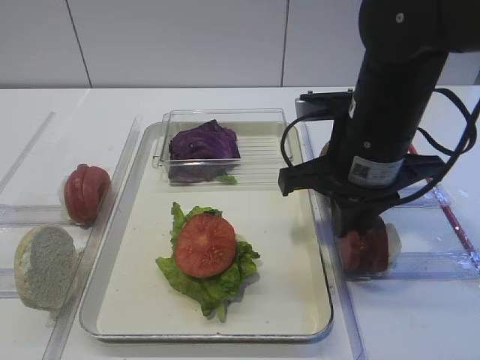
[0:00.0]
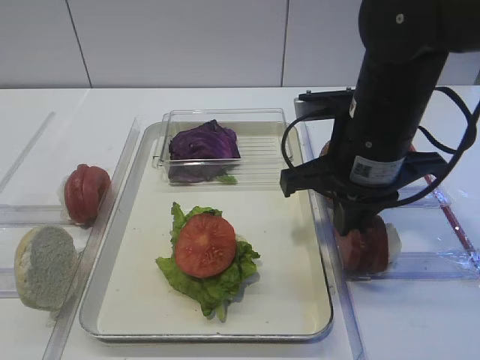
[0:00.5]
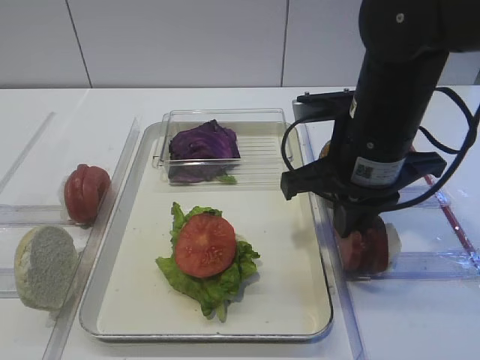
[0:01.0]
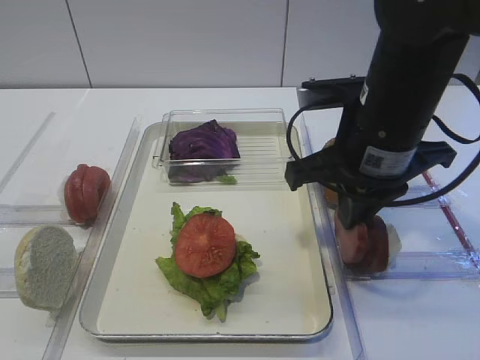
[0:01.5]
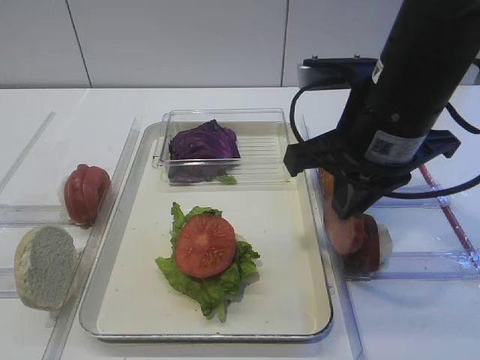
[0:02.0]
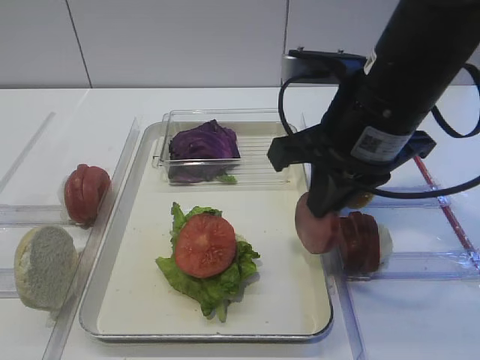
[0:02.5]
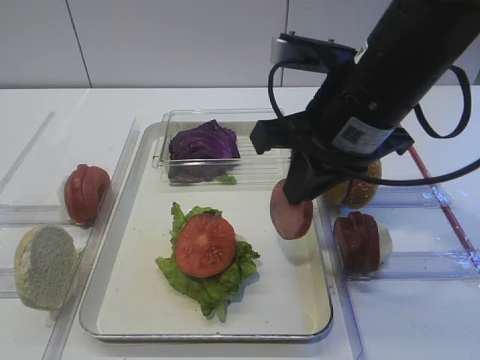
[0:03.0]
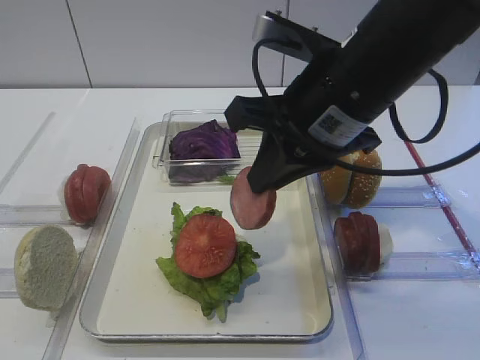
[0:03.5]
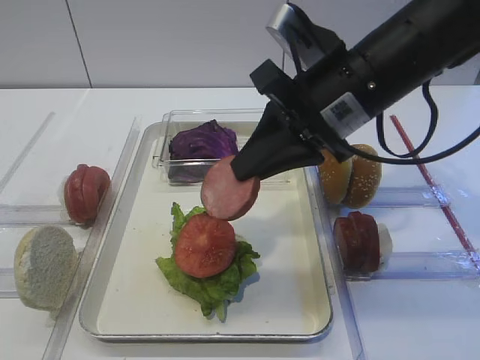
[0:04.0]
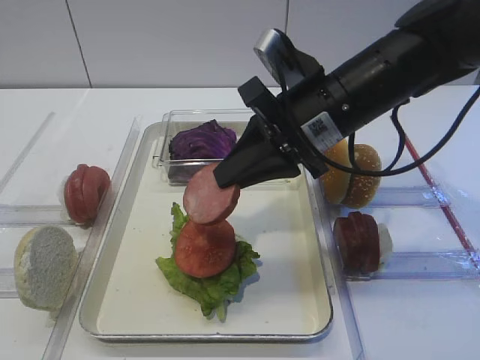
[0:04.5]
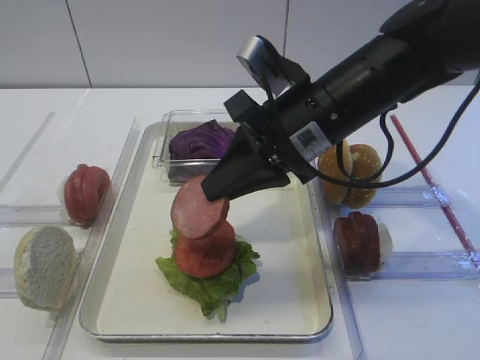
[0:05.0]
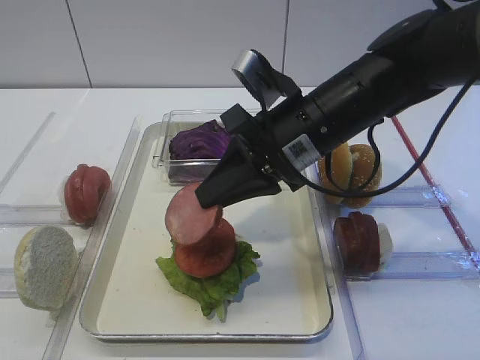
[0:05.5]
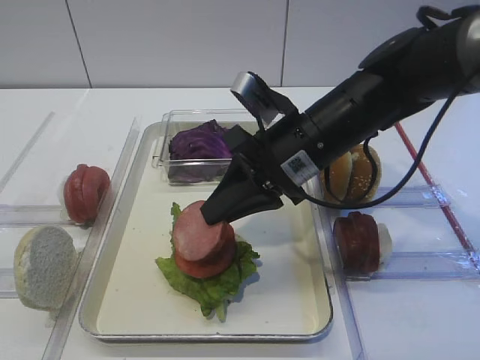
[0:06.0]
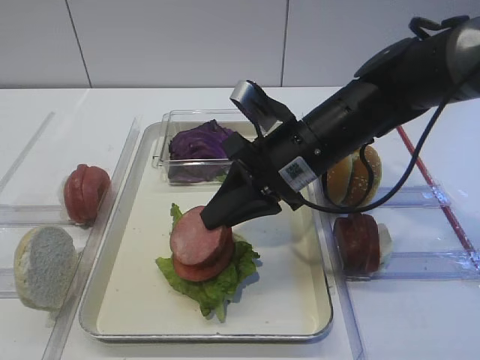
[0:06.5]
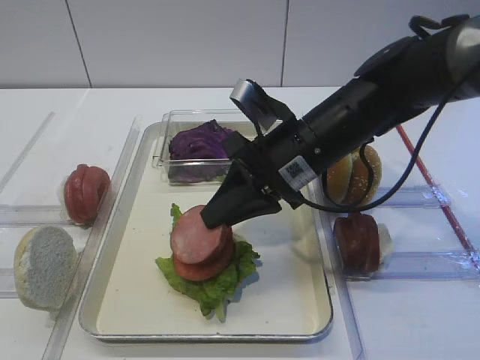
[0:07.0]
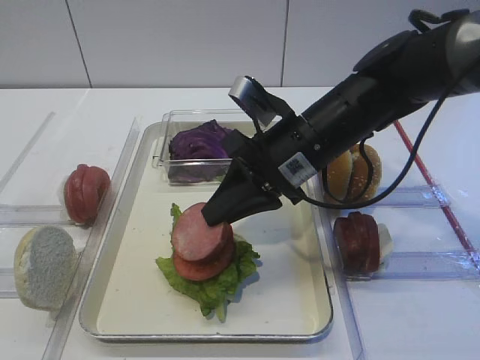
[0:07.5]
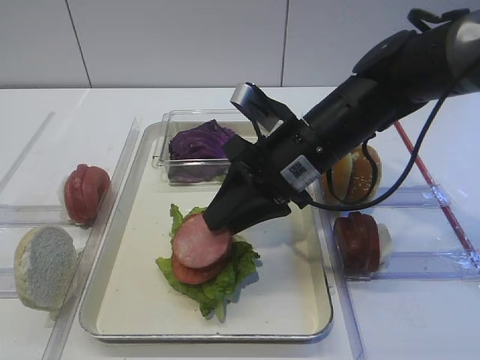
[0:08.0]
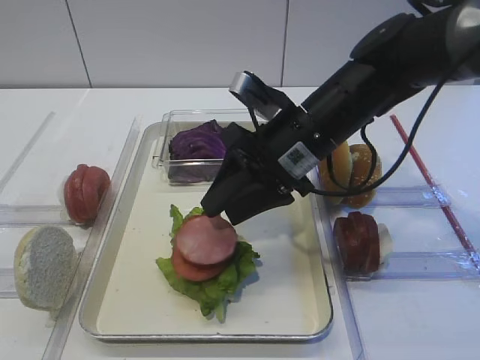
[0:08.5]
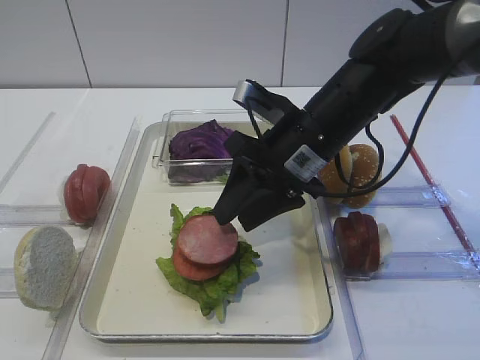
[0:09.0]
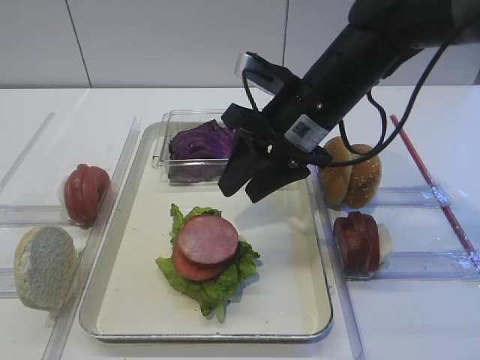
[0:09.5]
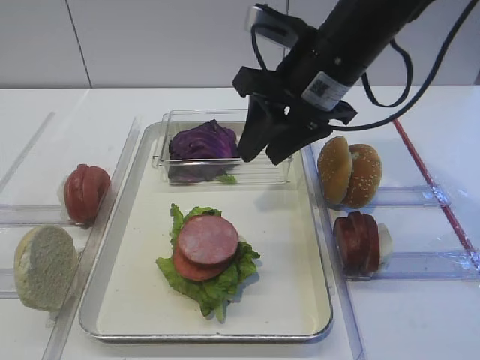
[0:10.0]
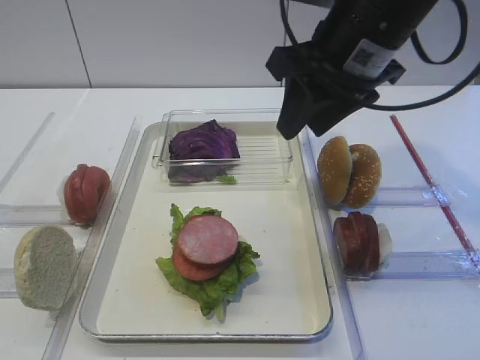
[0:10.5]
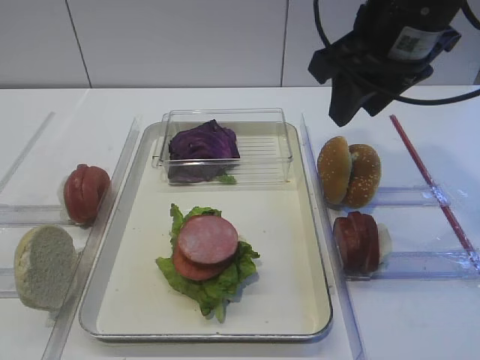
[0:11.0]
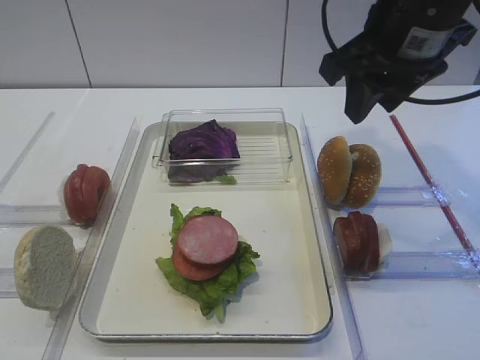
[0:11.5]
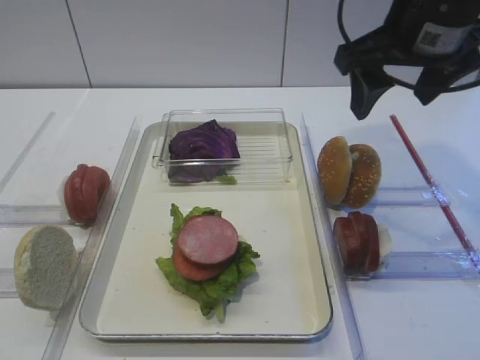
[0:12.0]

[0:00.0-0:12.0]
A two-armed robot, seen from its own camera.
Step, 0:00.0 to 0:02.0: Pick up the cutlet with the right gripper.
Step, 0:02.5 to 0:09.5: Place the cutlet on the tomato slice with the right gripper.
0:00.0 to 0:02.0: The grippers stay close to where they were, moving slightly.
0:04.0 to 0:06.0: The right gripper travels downward by about 5 cm.
0:06.0 to 0:08.0: The right gripper opens.
0:08.0 to 0:10.0: The right gripper travels upward by some 10 cm.
0:10.0 to 0:12.0: The right gripper shifts approximately 10 cm to the right and upward, and opens its fingers.

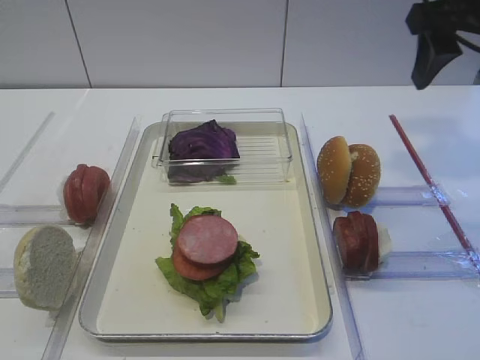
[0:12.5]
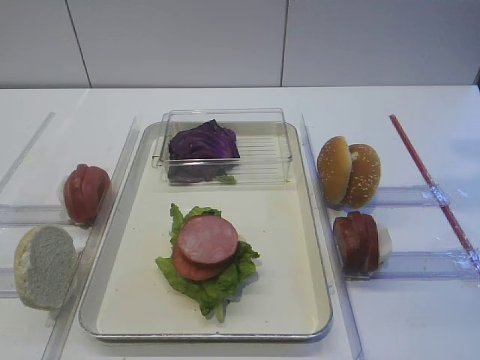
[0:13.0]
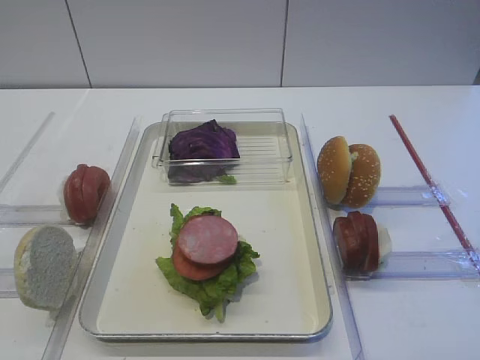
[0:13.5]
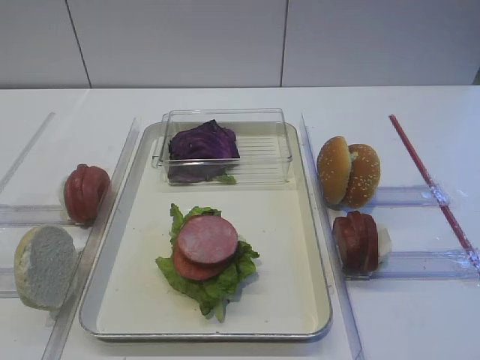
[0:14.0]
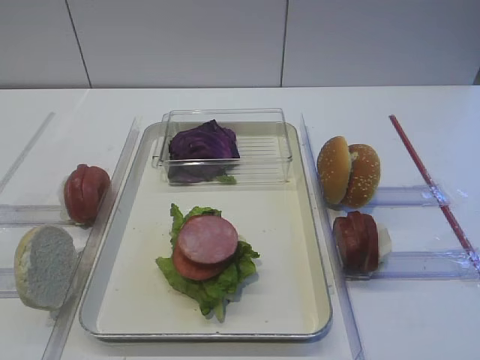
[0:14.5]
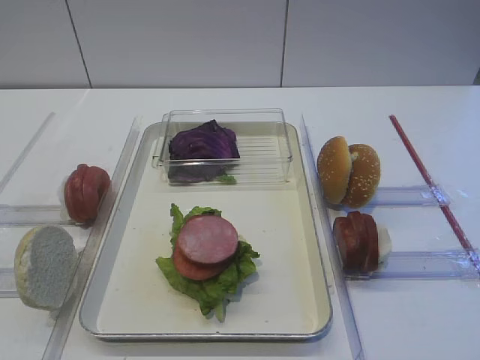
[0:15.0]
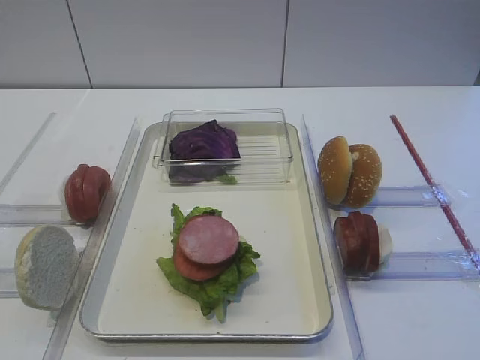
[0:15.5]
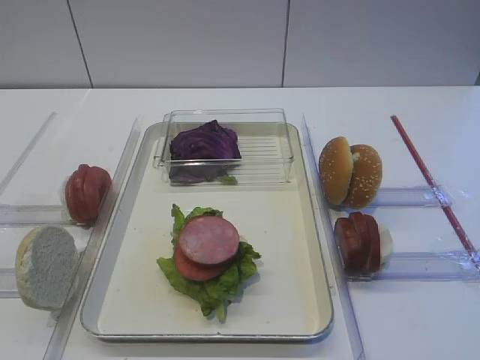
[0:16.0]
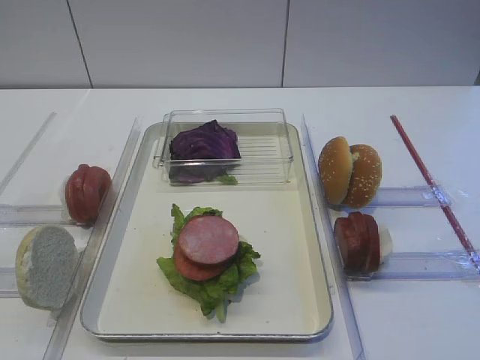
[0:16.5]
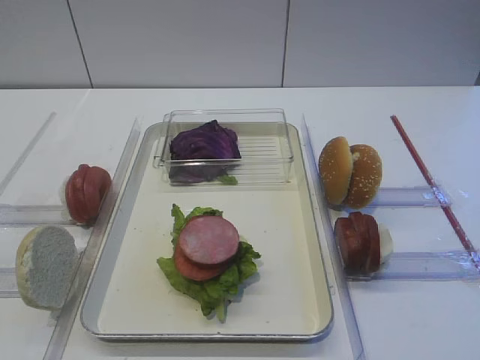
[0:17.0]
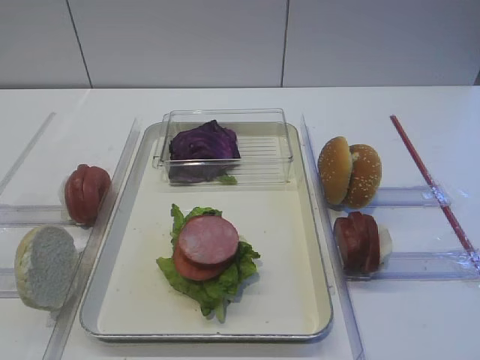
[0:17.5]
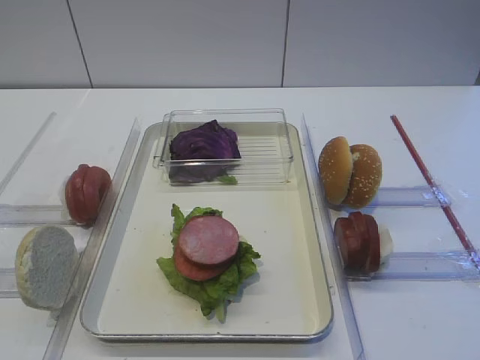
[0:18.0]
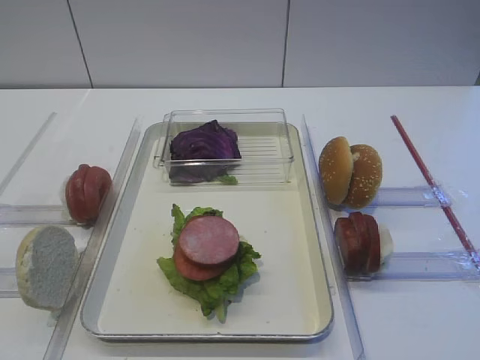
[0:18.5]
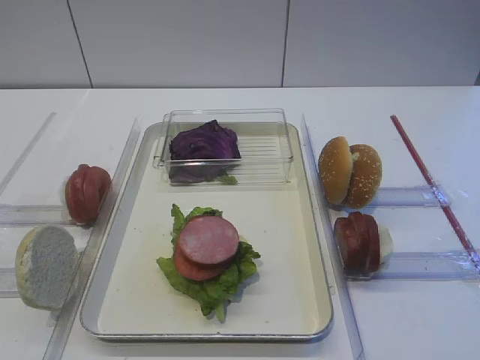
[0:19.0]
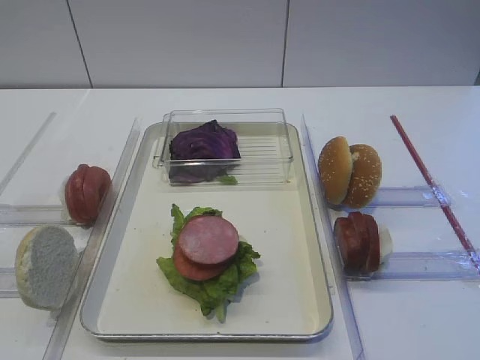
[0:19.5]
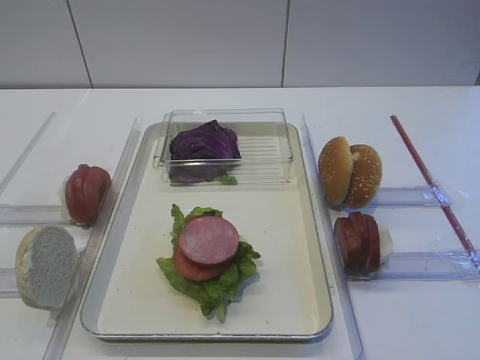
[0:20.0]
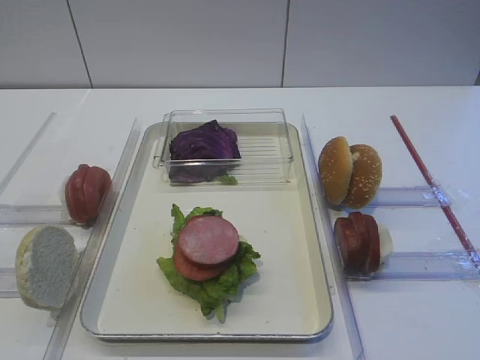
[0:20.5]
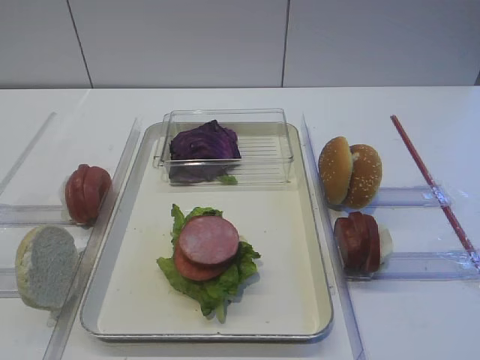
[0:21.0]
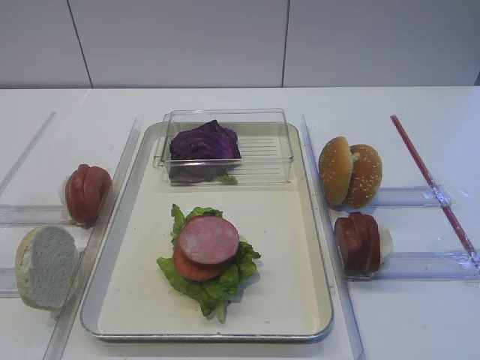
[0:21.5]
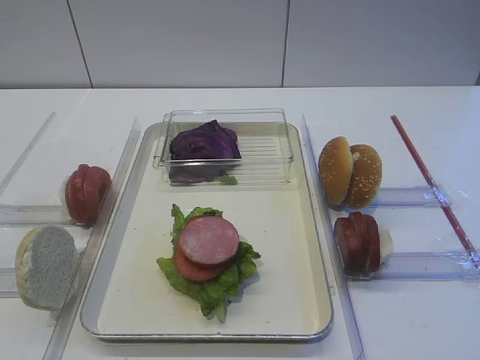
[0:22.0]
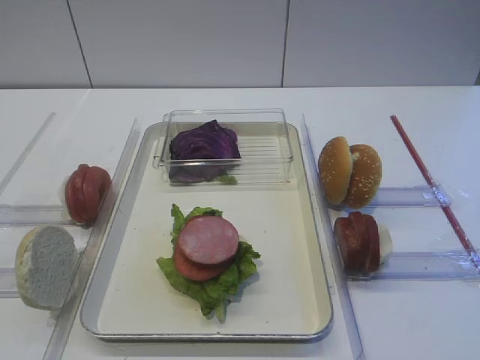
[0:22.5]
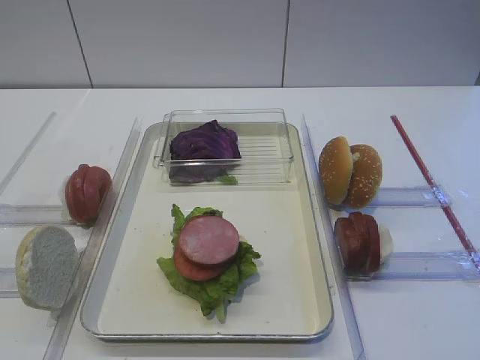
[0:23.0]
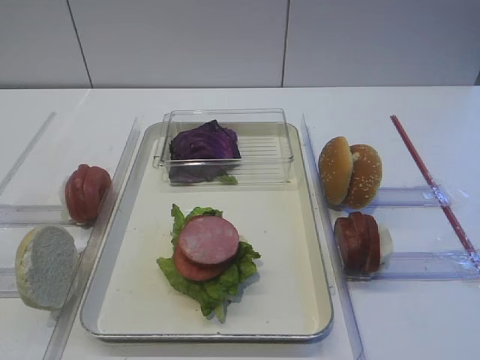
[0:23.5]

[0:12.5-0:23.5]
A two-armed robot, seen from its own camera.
0:12.5 to 0:14.5: The right gripper moves backward, some 30 cm.
0:16.0 to 0:23.5: Both grippers stay put.

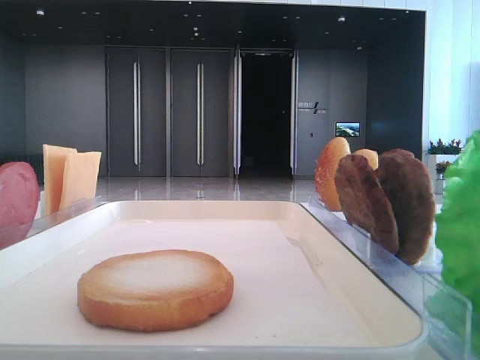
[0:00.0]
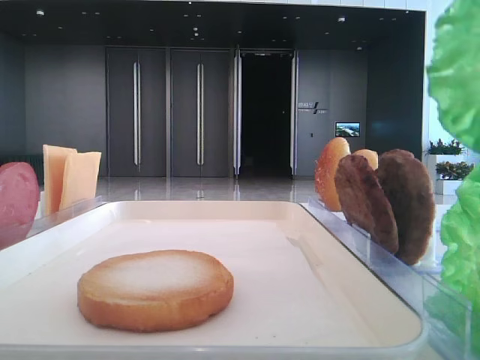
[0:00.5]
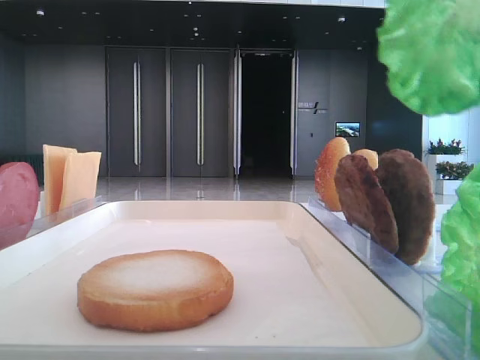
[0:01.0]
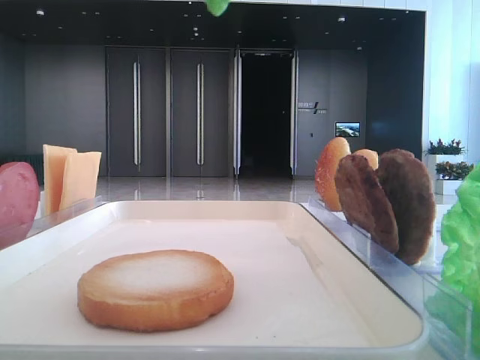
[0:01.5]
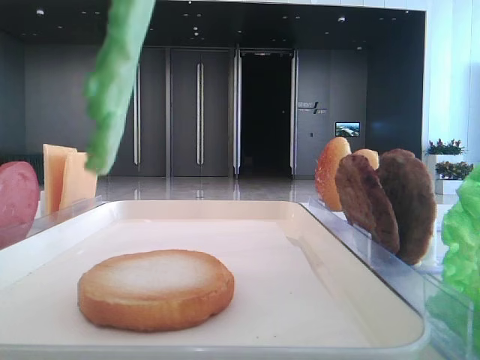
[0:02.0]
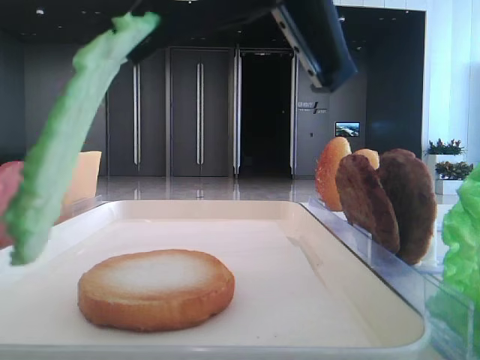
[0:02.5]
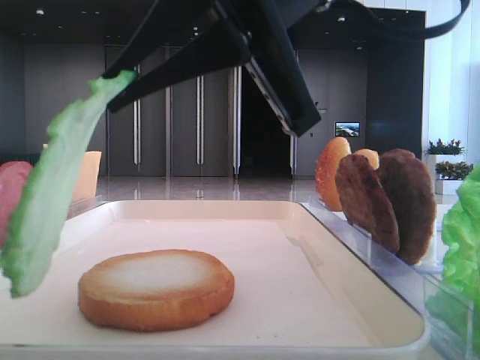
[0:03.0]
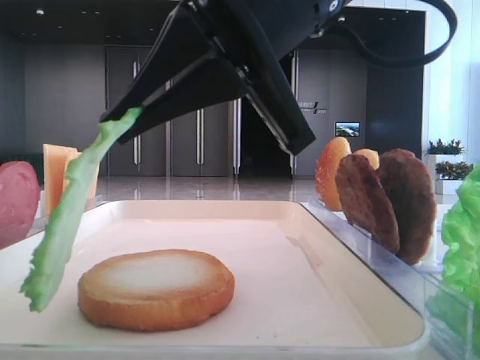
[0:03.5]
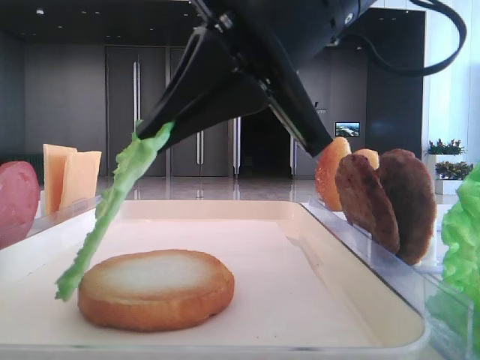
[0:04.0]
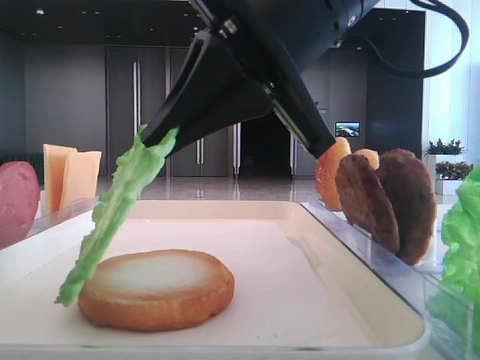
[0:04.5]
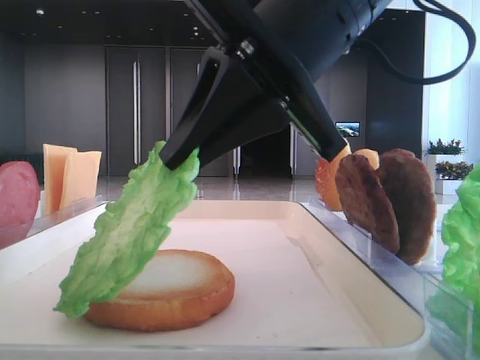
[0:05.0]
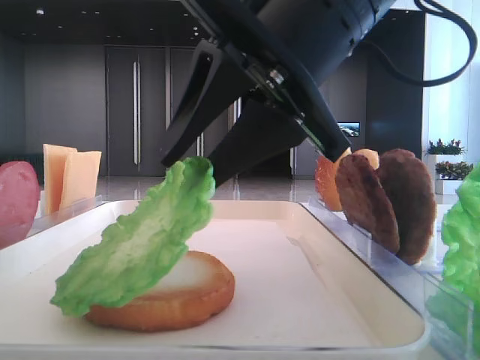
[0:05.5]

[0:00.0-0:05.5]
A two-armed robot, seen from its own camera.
0:00.0 to 0:02.0: The right gripper is displaced to the left by roughly 10 cm.
0:02.0 to 0:03.5: The right gripper is displaced downward and forward by some 10 cm.
0:03.5 to 0:05.5: The right gripper opens up.
